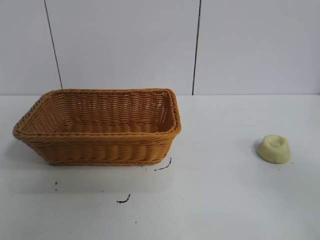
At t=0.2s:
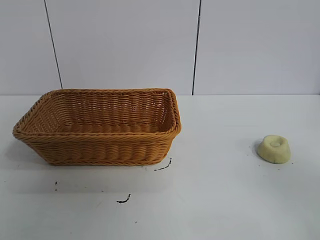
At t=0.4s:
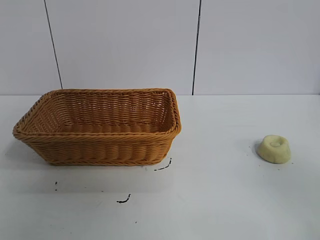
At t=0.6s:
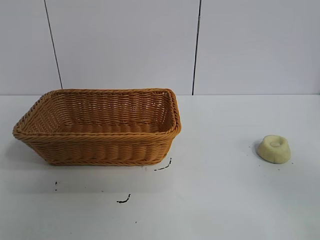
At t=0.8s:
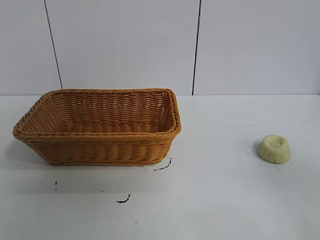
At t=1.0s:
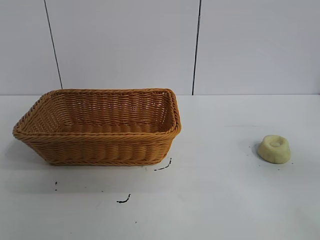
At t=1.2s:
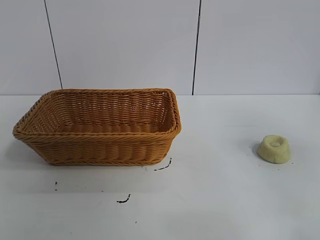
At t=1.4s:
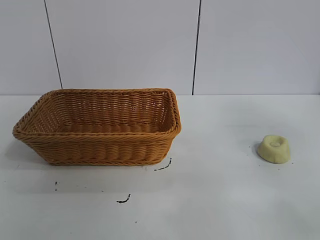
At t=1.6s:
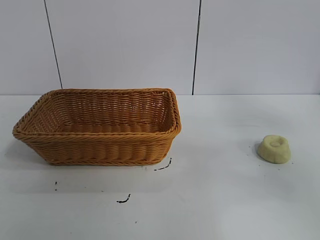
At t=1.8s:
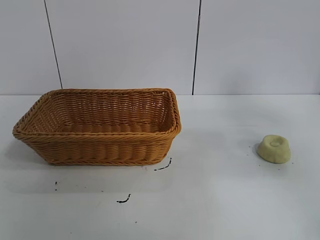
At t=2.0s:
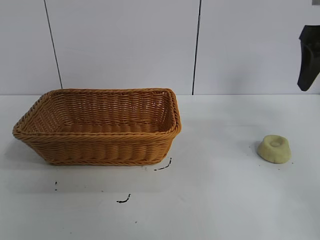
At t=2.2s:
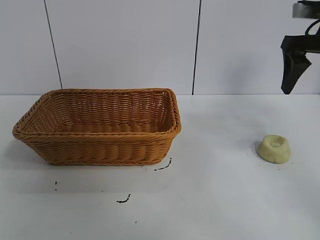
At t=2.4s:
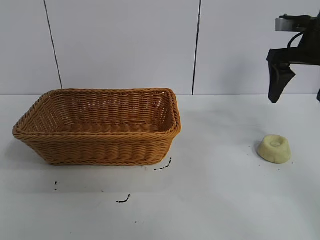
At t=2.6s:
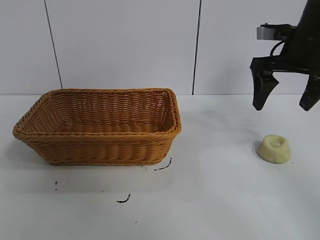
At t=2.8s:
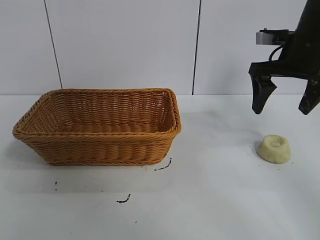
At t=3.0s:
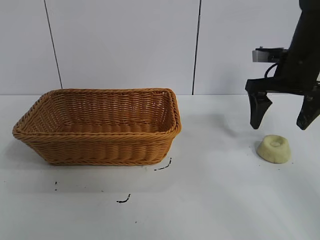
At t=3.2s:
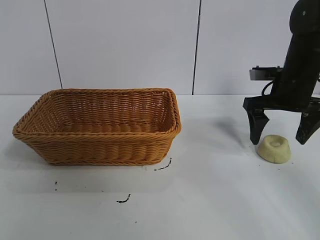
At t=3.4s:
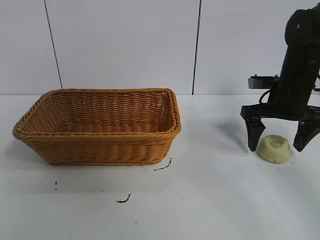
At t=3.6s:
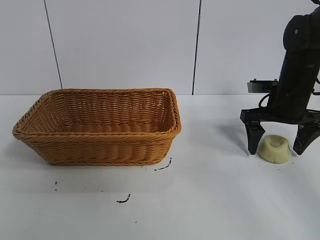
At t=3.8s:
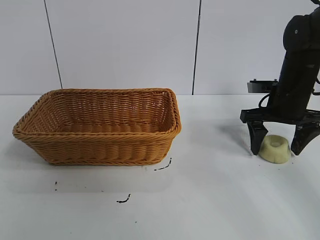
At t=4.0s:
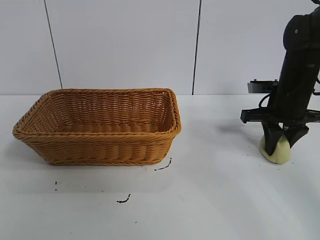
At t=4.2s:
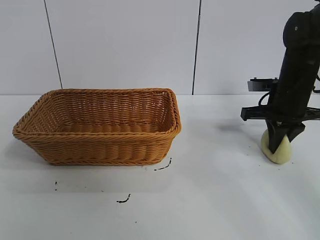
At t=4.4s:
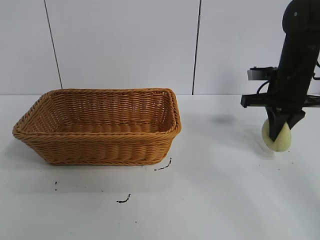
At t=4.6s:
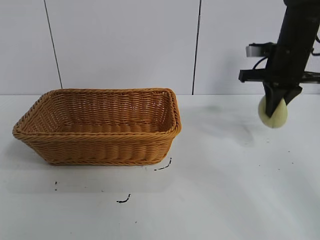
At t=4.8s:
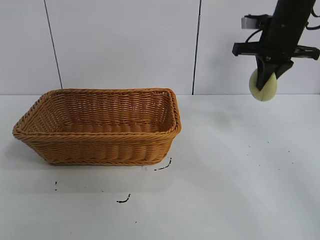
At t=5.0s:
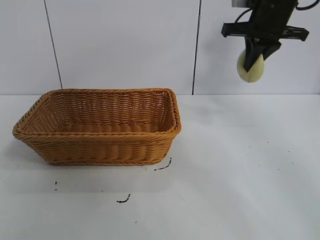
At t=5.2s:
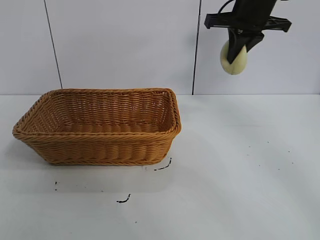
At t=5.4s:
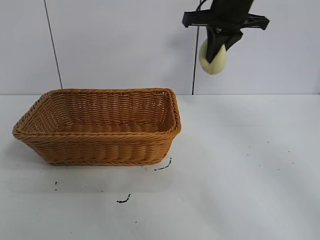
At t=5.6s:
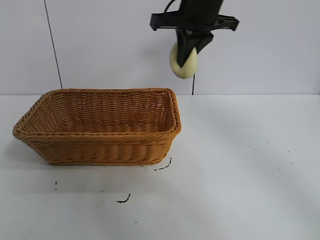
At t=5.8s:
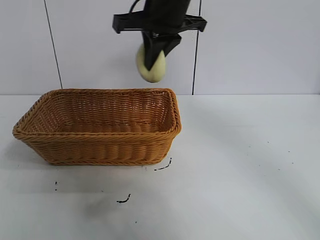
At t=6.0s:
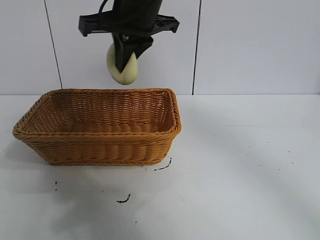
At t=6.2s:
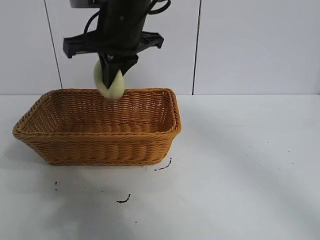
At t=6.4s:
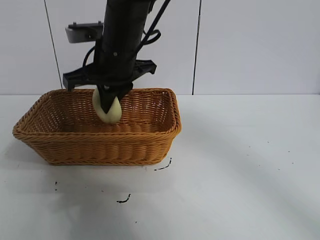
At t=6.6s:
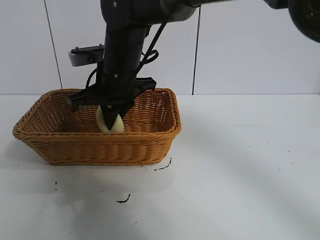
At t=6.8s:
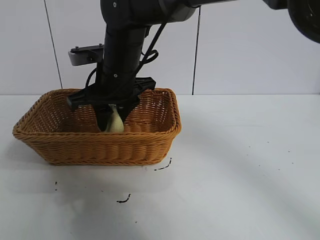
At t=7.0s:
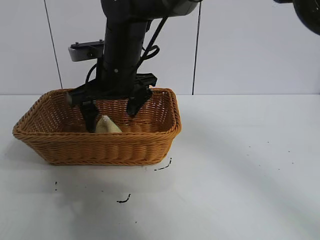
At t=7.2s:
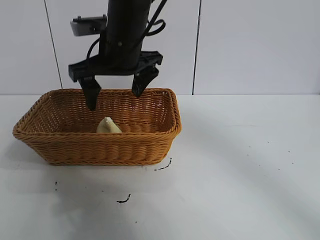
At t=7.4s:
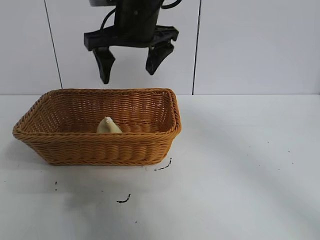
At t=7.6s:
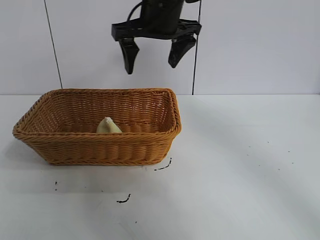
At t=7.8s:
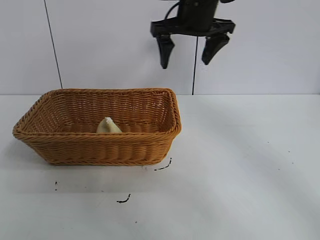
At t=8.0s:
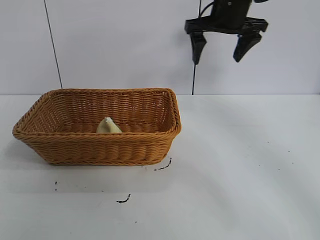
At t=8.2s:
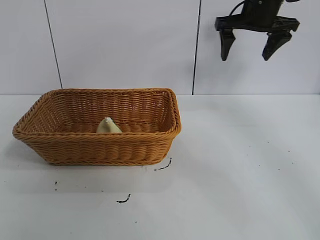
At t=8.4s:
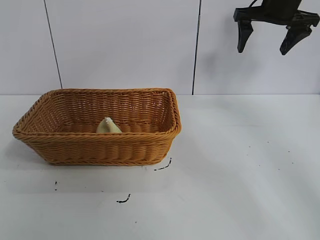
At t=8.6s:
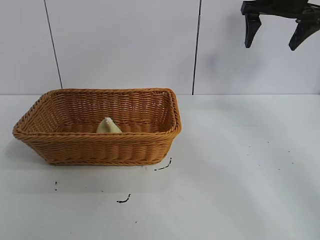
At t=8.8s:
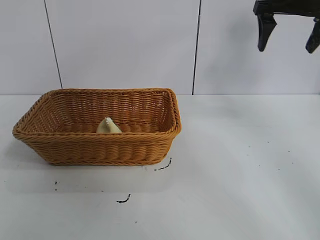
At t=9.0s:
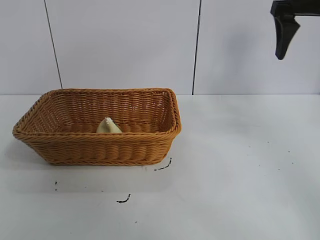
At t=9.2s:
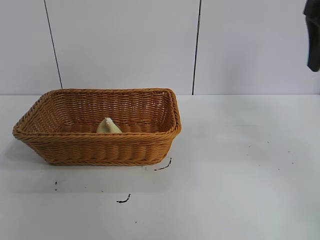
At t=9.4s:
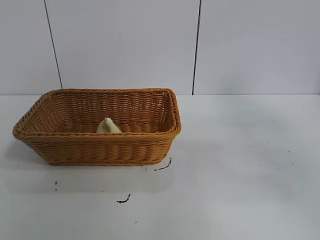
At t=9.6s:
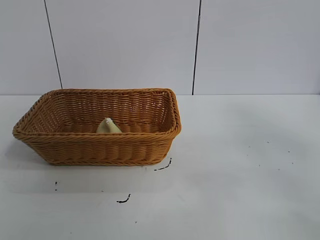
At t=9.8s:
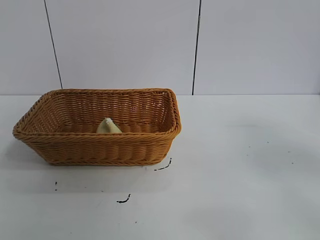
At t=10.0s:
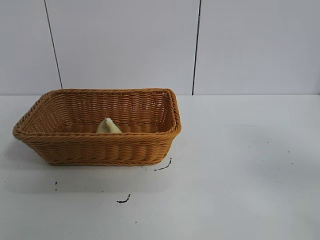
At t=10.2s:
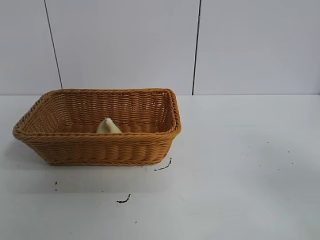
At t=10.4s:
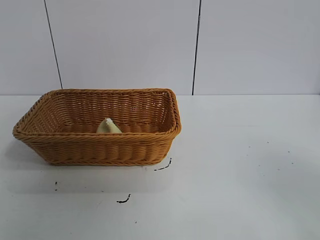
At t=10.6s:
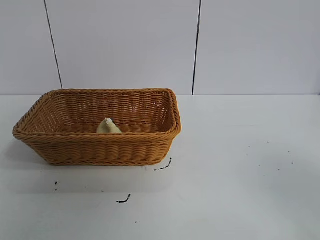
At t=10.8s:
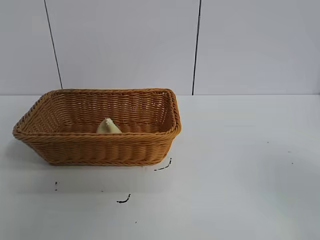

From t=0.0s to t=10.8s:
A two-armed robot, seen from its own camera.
Task of the whole recording: pick up the egg yolk pastry and put it into the basket.
Step, from t=0.8s to t=4.0s: Grasp egg yolk pastry with right gripper.
Step, from t=4.2s to t=6.8s: Place the egg yolk pastry in the basket with right gripper.

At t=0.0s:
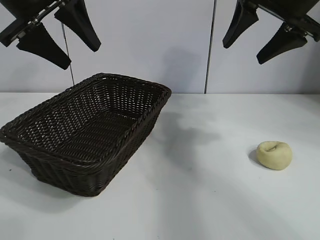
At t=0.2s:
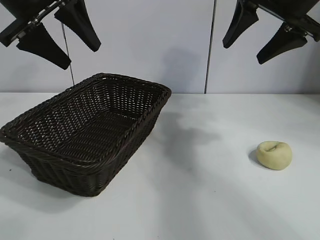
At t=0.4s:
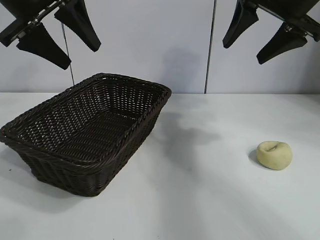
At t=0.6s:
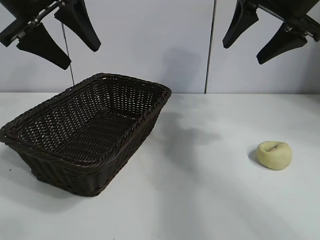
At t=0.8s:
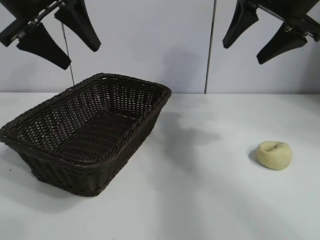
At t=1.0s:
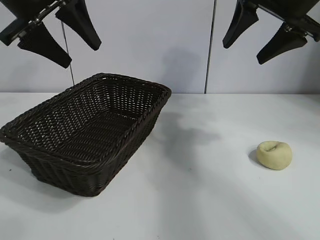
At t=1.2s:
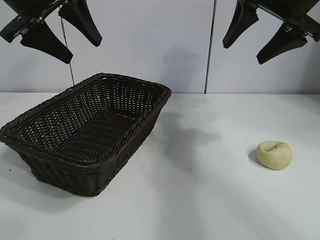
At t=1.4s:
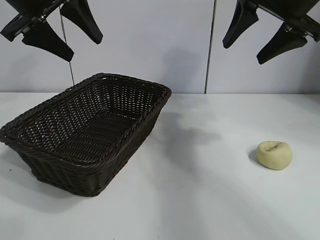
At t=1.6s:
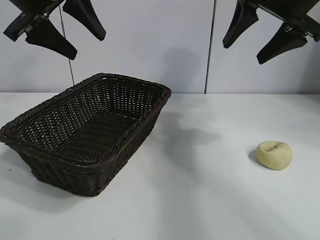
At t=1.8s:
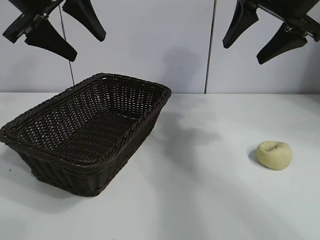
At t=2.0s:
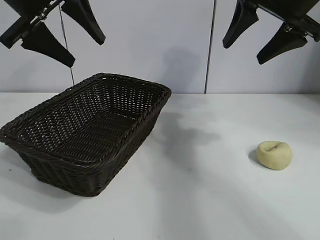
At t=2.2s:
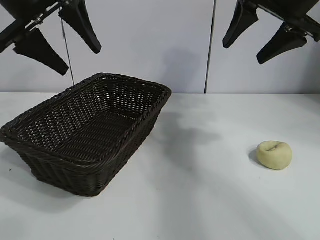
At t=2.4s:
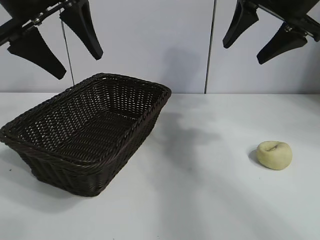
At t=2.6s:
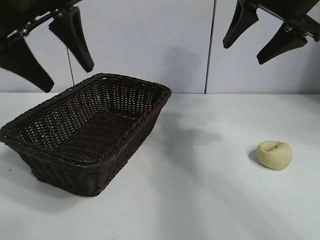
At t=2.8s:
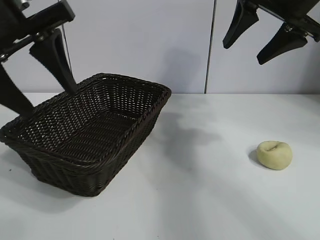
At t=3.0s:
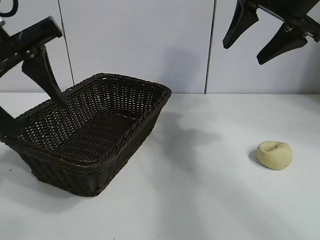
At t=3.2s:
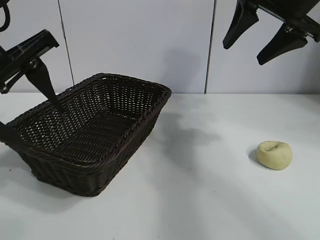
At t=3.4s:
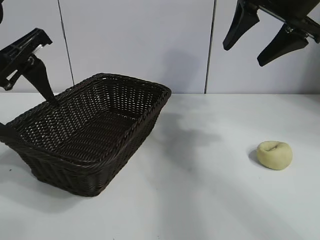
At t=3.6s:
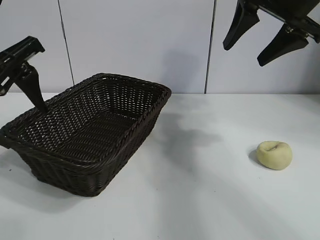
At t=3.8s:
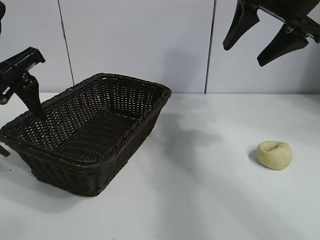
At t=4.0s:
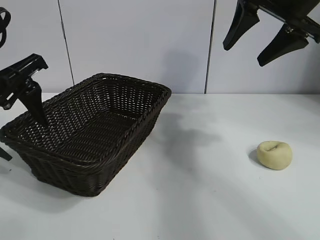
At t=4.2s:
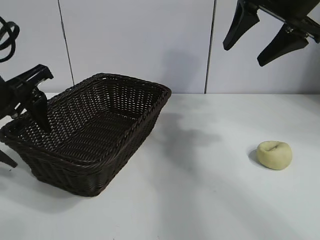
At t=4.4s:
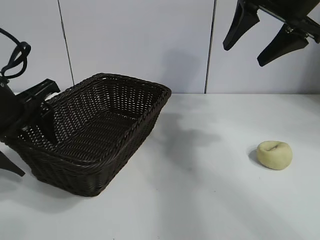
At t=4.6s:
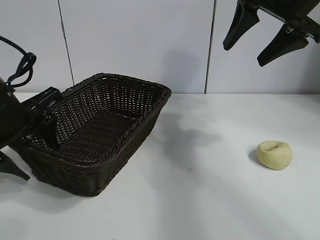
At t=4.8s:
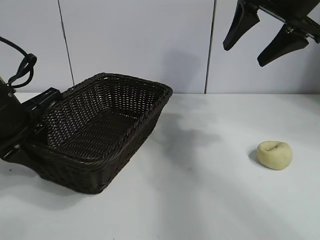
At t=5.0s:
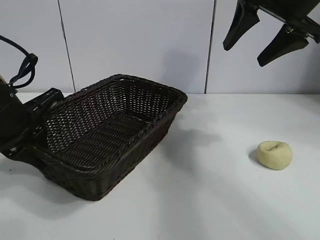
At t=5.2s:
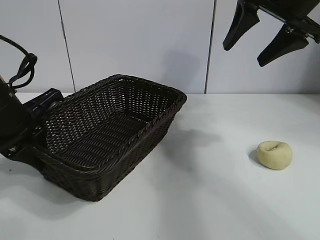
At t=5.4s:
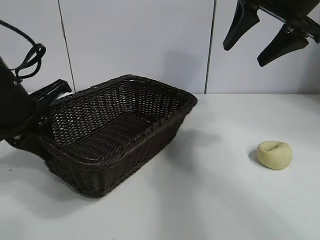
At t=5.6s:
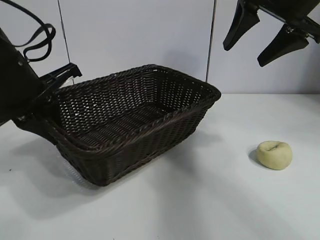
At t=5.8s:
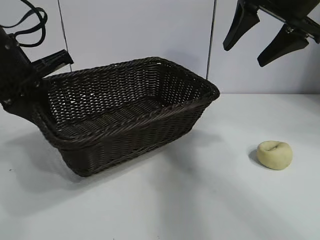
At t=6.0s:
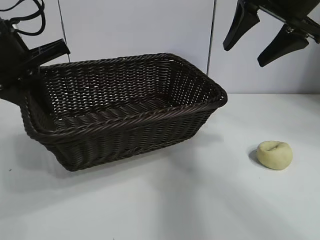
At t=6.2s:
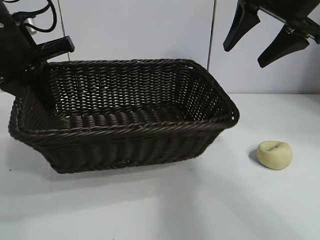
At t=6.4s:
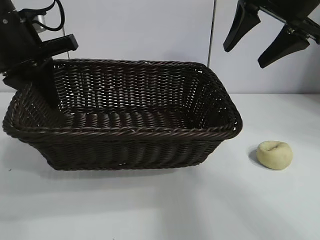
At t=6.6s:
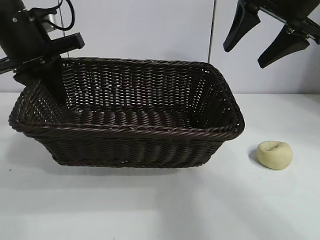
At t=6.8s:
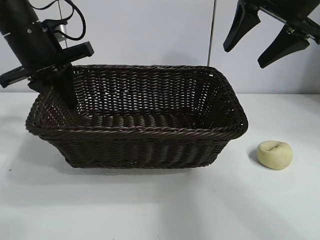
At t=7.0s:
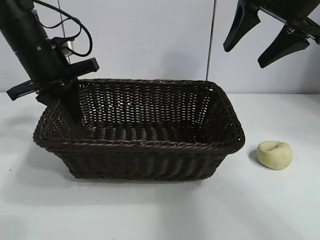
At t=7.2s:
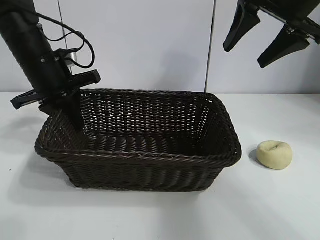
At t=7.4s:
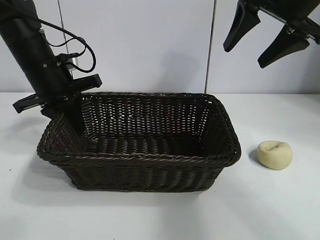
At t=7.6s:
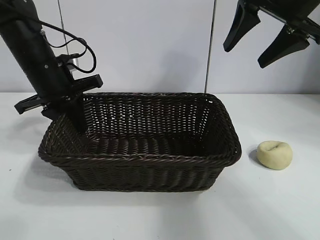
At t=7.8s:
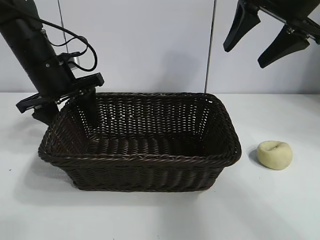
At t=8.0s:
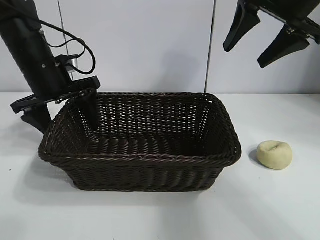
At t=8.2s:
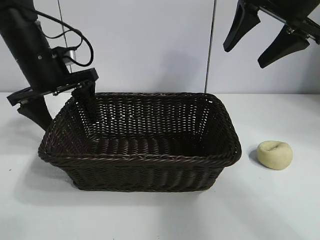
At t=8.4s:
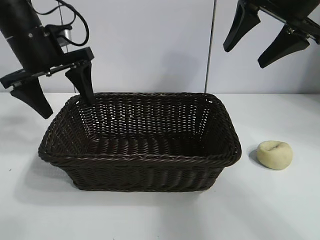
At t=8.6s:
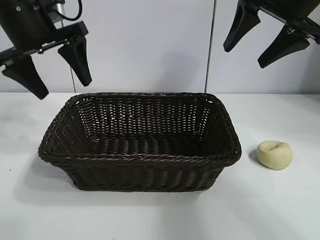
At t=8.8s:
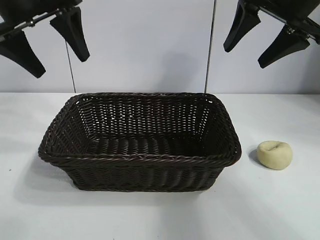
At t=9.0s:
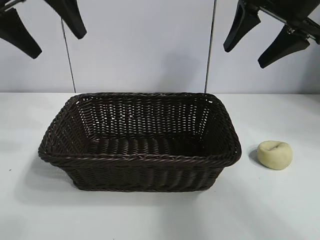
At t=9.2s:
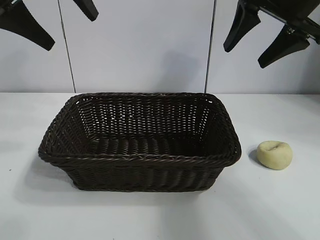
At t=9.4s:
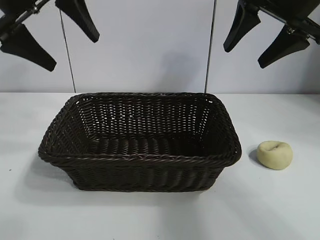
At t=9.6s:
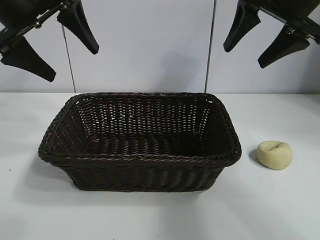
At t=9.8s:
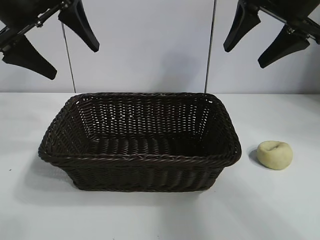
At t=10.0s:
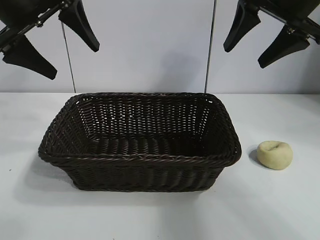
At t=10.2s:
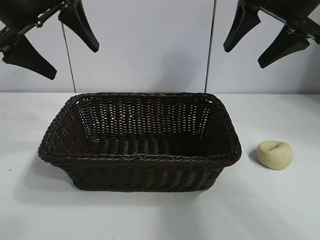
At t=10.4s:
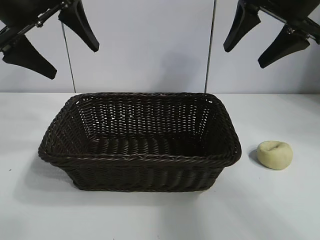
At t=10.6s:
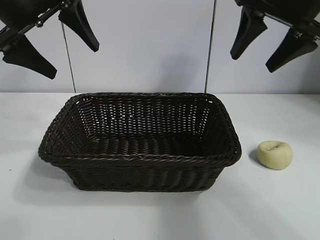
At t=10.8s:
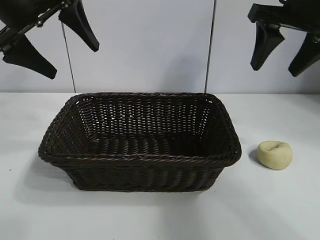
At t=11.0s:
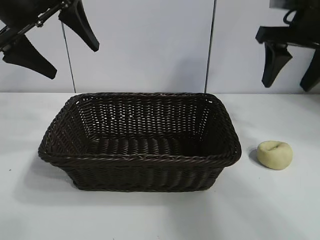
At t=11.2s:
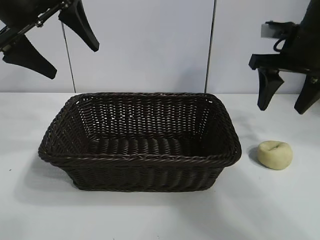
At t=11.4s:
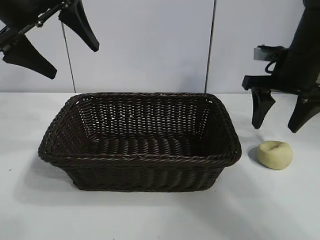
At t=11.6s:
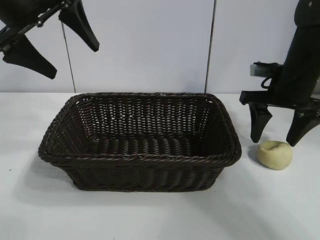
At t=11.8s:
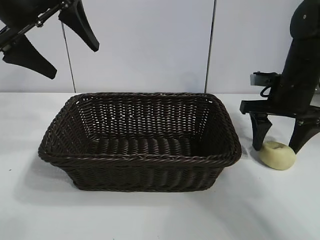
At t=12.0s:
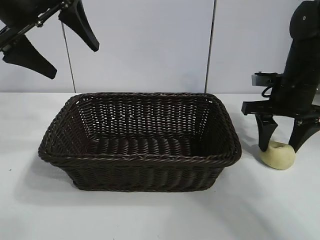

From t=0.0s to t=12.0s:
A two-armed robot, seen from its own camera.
Task of the whole recording: pick up the egg yolk pastry and put it into the basket.
Step, from t=1.0s to t=4.8s: Grasp the basket with left gripper.
Step, from t=5.0s to t=8.0s: Place the basket in the center of view with left gripper.
